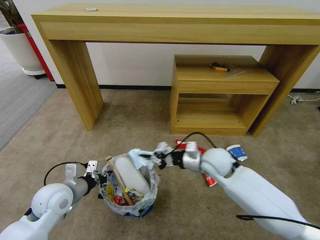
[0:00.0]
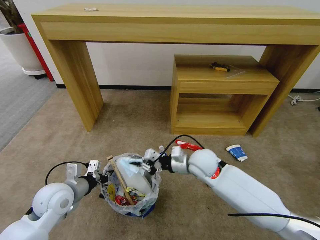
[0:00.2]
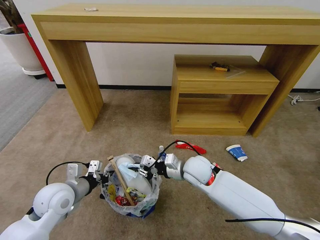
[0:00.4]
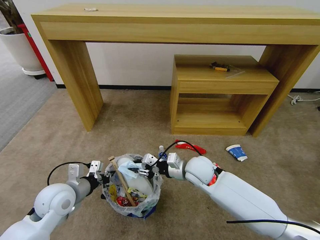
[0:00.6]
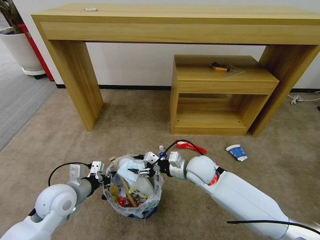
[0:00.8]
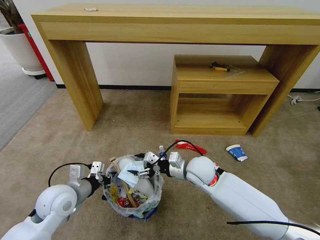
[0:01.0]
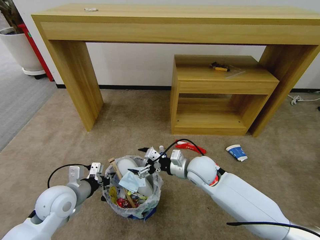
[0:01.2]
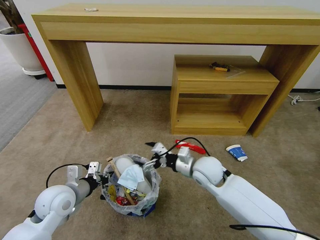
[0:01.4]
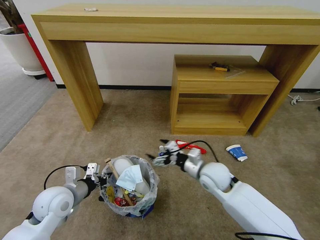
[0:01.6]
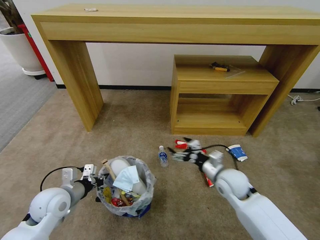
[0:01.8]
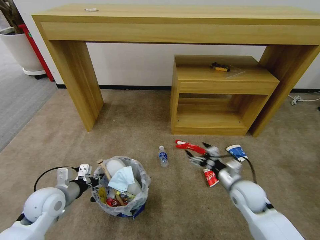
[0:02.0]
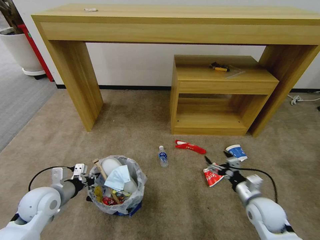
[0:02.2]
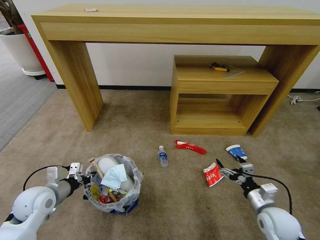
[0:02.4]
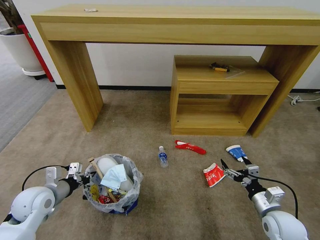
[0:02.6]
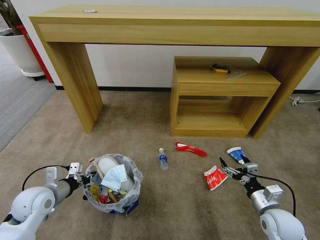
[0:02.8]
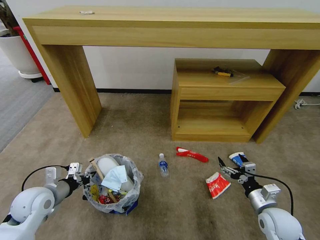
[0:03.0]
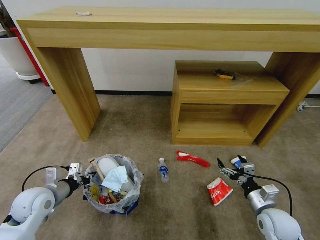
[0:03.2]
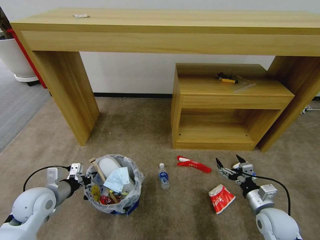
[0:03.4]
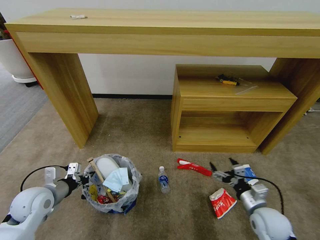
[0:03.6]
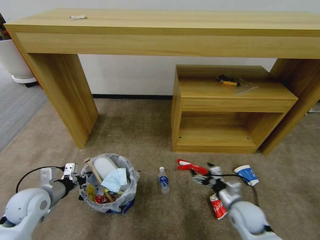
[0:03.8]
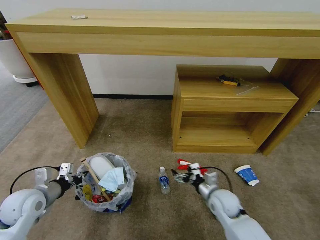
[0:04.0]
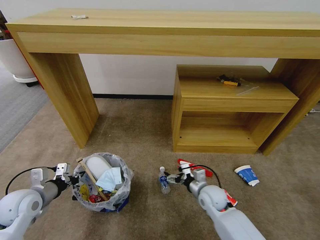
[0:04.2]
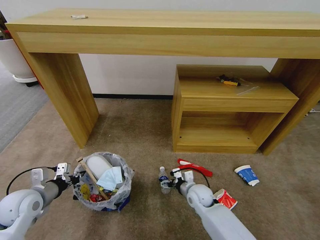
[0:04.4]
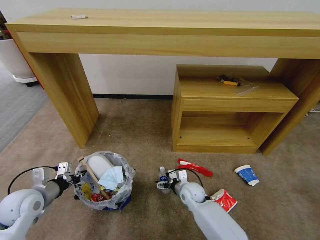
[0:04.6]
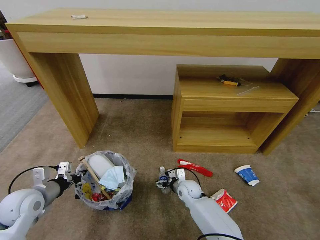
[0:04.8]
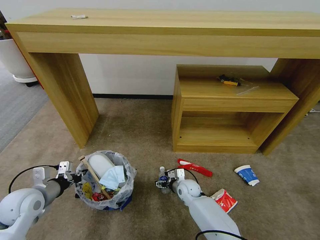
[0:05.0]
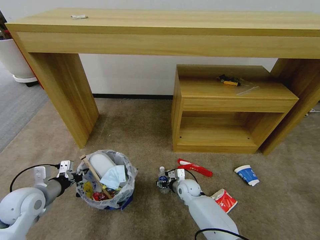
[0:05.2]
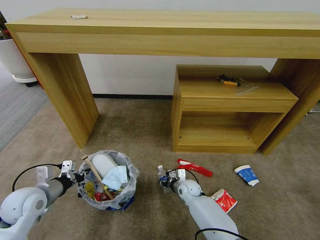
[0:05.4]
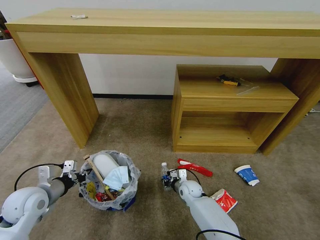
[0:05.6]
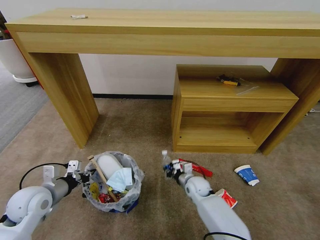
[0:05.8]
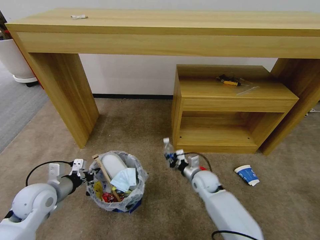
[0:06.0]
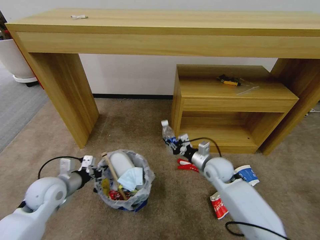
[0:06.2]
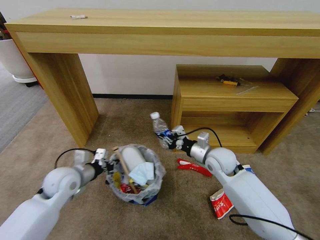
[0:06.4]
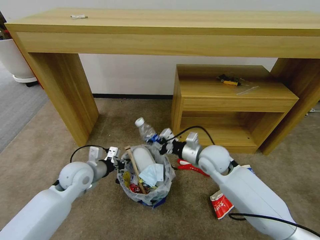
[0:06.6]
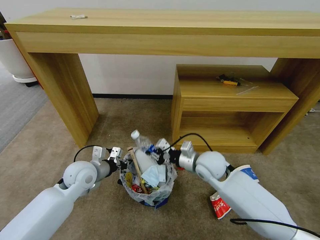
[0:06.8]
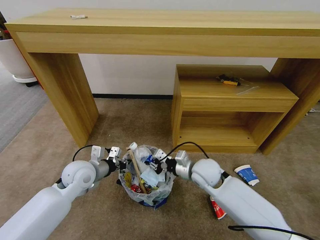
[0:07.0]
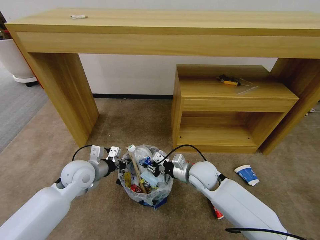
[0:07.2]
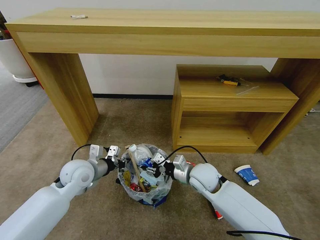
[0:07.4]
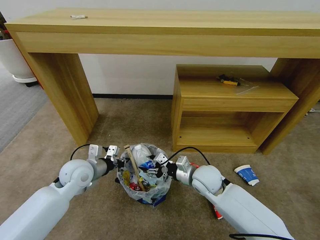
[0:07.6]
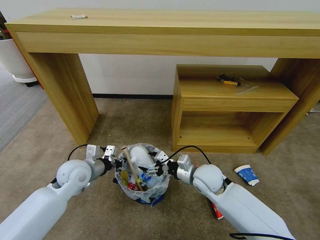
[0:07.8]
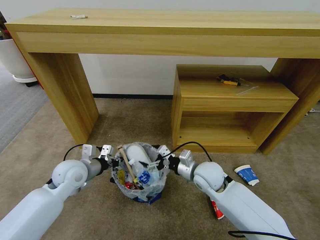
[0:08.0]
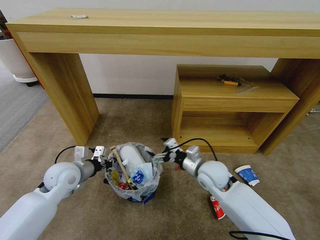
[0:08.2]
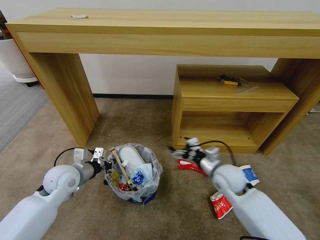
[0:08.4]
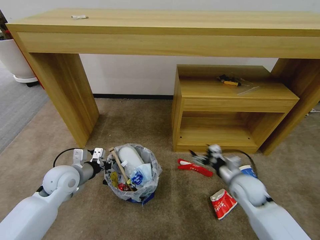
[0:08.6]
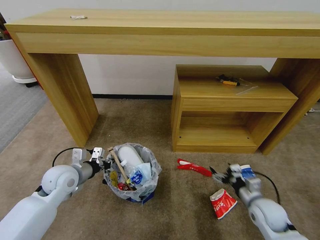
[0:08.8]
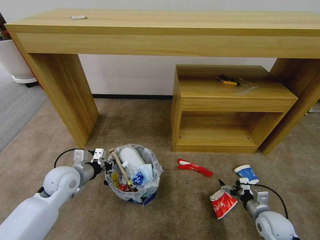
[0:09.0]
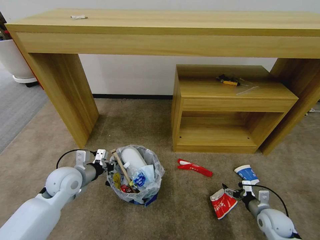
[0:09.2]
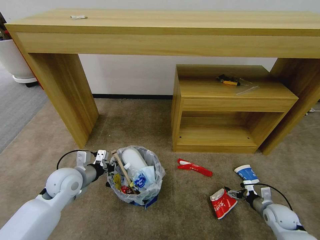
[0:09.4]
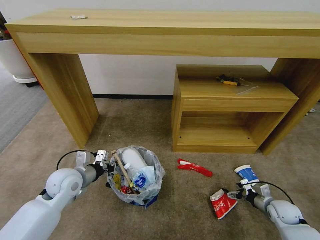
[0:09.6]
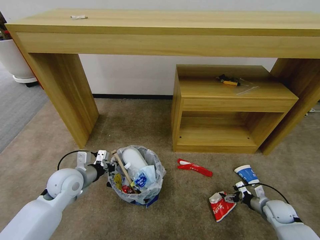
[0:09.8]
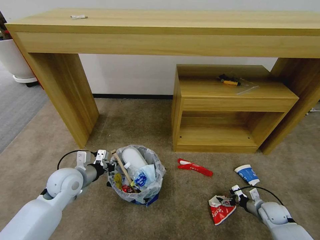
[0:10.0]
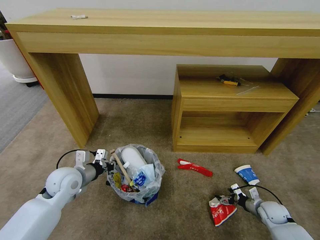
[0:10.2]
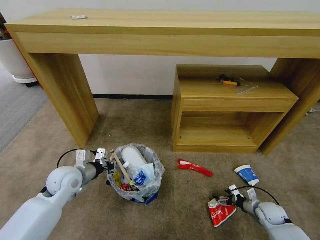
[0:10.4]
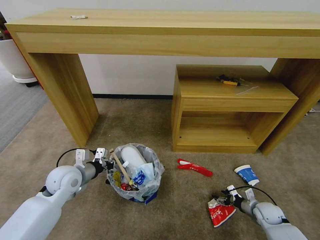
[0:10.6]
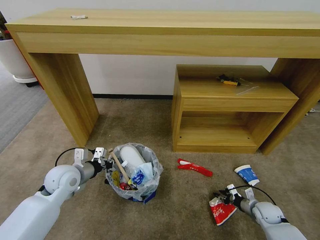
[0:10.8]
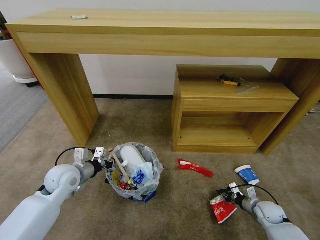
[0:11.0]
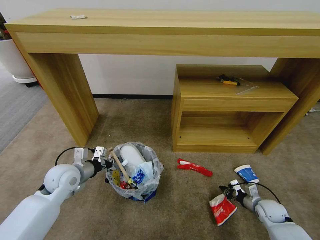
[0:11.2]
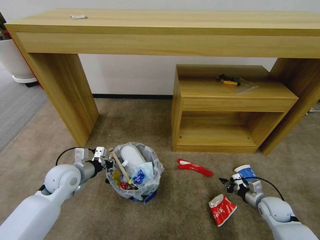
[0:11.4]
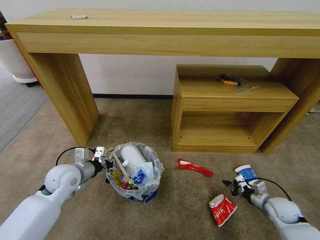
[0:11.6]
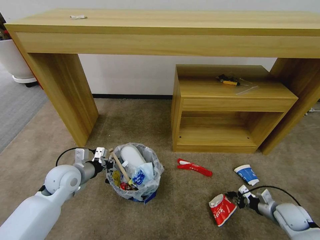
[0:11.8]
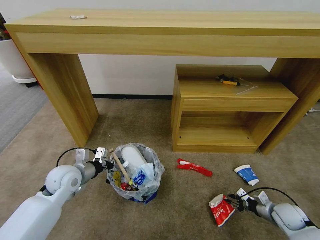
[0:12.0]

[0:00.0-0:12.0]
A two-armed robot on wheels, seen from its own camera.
Task of the whole recording: Pick up the trash bin and place the garbage on the floor into it.
0.0 to 1.6 s: The right gripper ends up about 5 cm from where it was, and opens its fingers.
1.6 to 3.0 s: The left gripper is displaced to the left by approximately 5 cm; the right gripper goes approximately 20 cm to the right and backward.
3.0 to 4.4 s: The right gripper travels to the left, forward and downward by roughly 25 cm.
4.4 to 6.0 s: The right gripper heads forward, covering roughly 5 cm, and closes its fingers; the left gripper ends up about 5 cm from where it was.
6.0 to 7.6 s: The left gripper heads to the right and forward, covering some 10 cm; the right gripper shifts some 10 cm upward, and opens its fingers.
7.6 to 9.0 s: The right gripper is displaced to the right, backward and downward by roughly 30 cm, and opens its fingers.
9.0 to 10.4 s: The right gripper travels downward, to the right and forward by approximately 10 cm.
10.4 to 12.0 s: The right gripper ends up approximately 5 cm from where it was, and closes up.

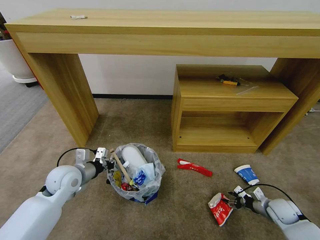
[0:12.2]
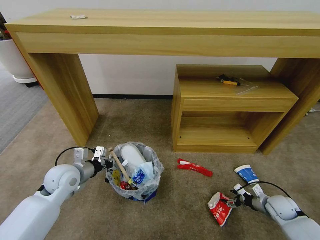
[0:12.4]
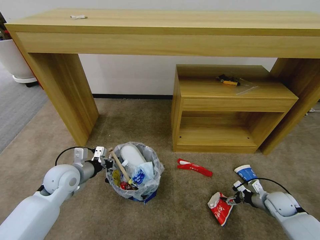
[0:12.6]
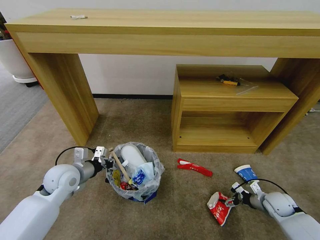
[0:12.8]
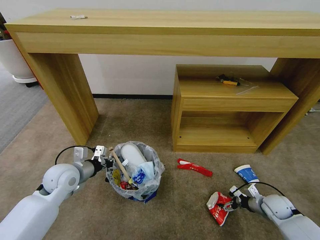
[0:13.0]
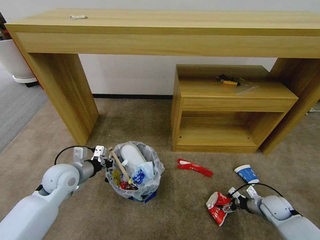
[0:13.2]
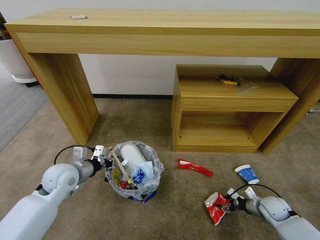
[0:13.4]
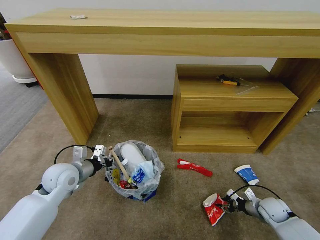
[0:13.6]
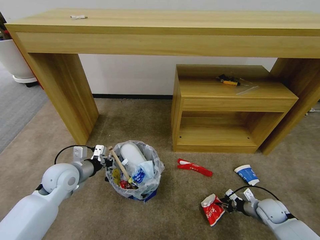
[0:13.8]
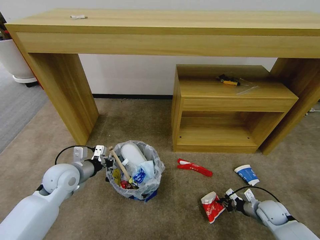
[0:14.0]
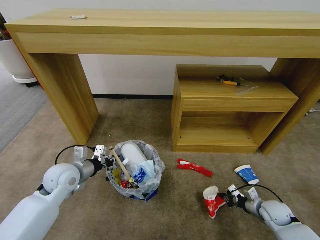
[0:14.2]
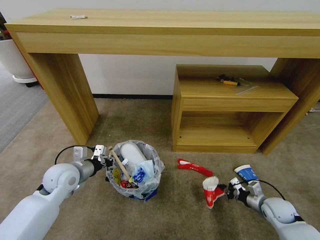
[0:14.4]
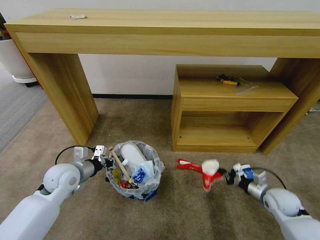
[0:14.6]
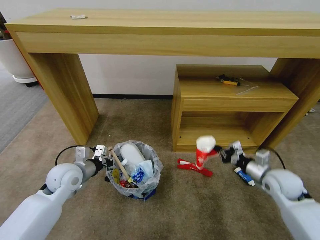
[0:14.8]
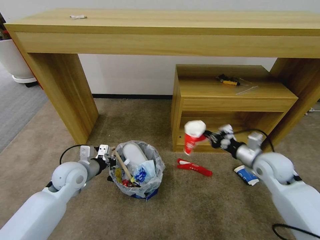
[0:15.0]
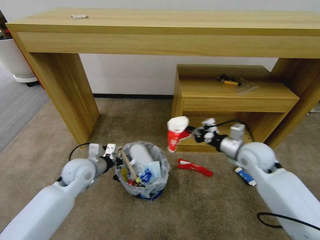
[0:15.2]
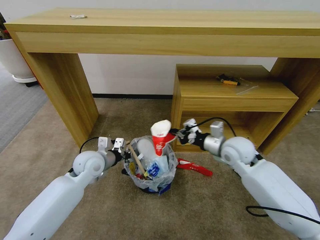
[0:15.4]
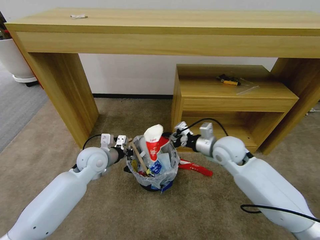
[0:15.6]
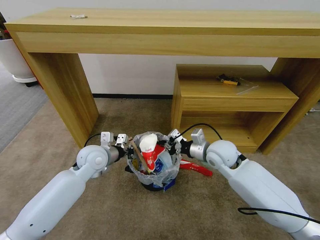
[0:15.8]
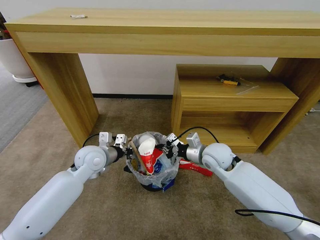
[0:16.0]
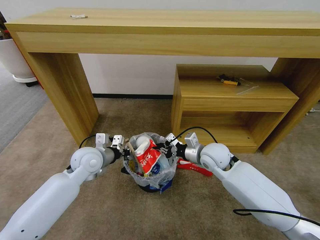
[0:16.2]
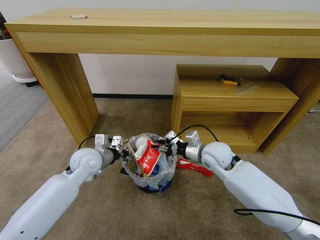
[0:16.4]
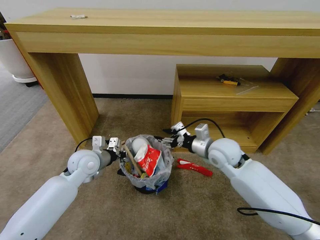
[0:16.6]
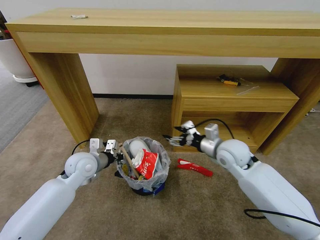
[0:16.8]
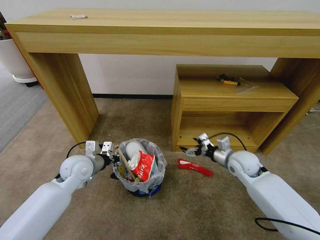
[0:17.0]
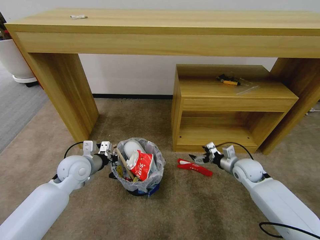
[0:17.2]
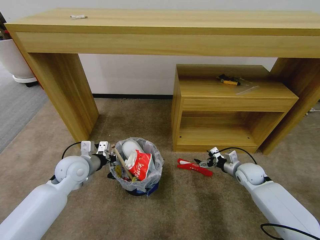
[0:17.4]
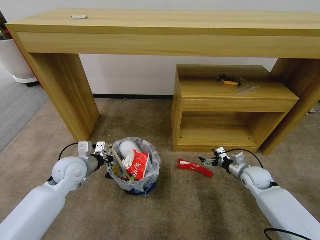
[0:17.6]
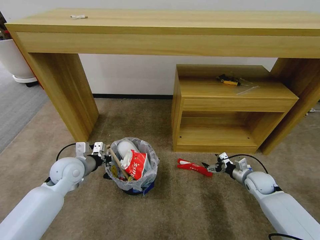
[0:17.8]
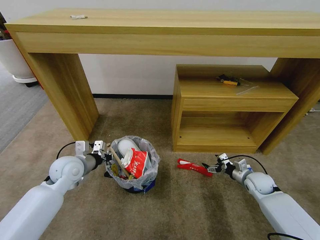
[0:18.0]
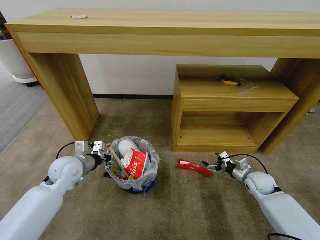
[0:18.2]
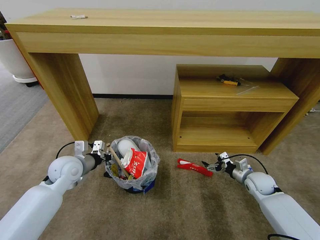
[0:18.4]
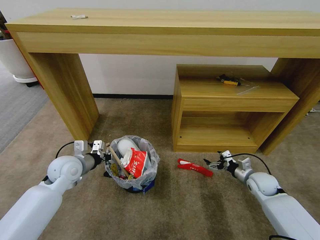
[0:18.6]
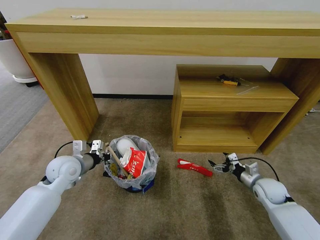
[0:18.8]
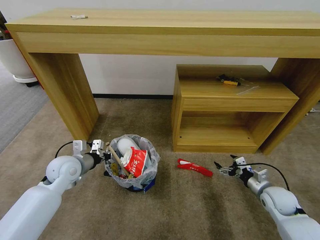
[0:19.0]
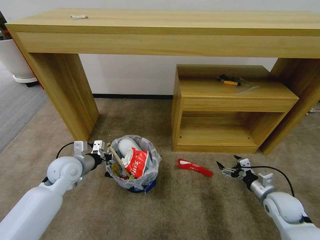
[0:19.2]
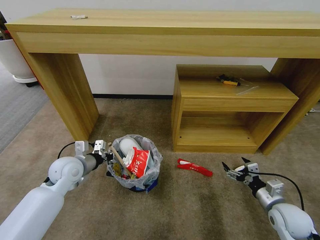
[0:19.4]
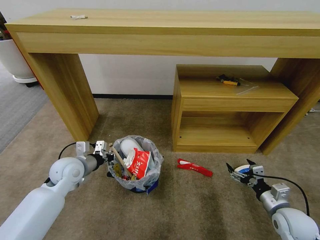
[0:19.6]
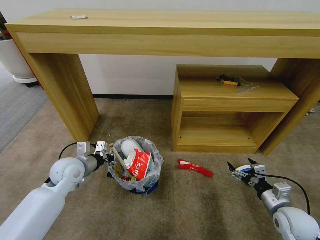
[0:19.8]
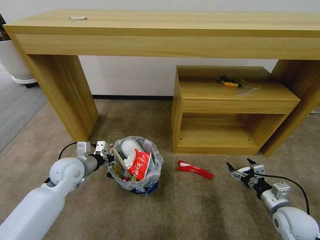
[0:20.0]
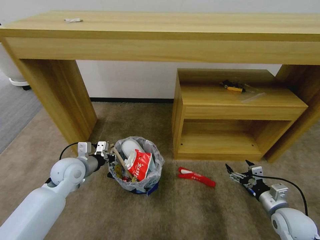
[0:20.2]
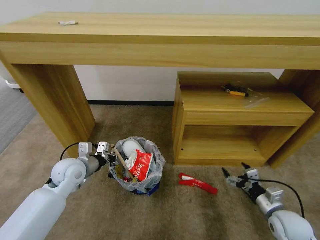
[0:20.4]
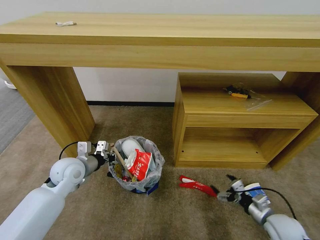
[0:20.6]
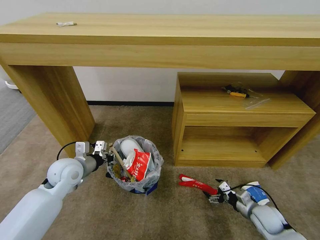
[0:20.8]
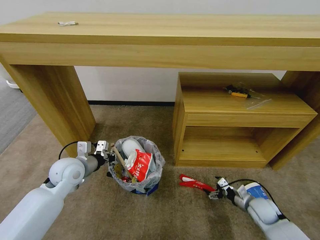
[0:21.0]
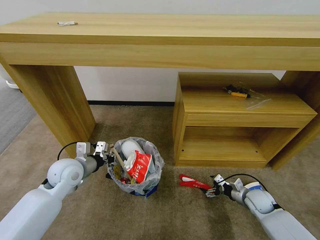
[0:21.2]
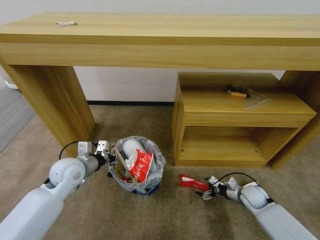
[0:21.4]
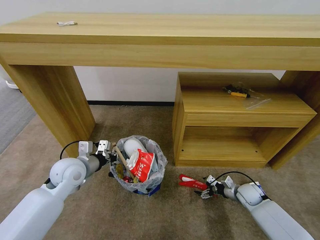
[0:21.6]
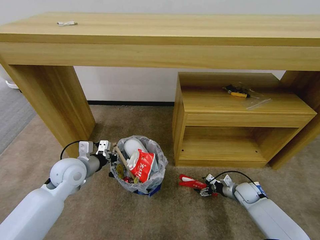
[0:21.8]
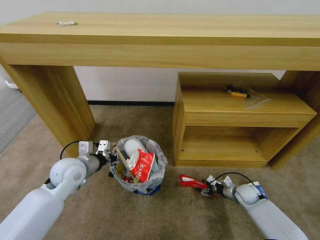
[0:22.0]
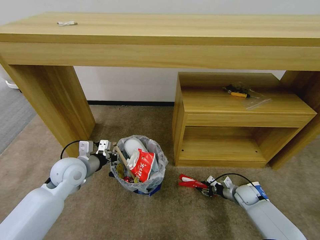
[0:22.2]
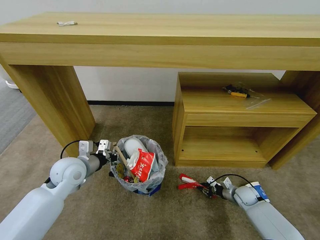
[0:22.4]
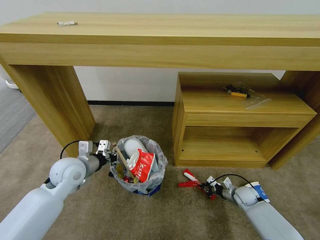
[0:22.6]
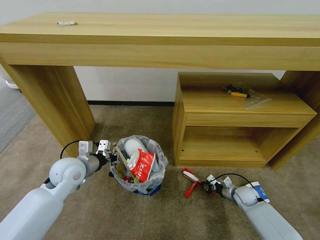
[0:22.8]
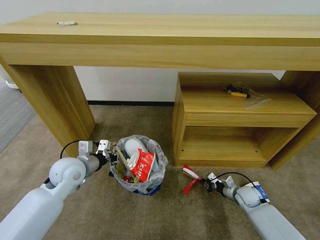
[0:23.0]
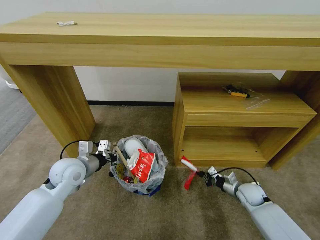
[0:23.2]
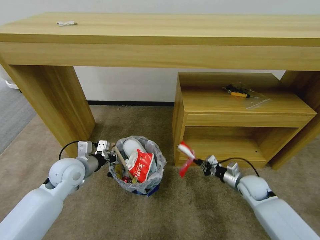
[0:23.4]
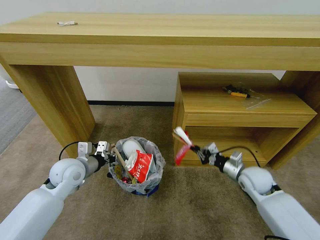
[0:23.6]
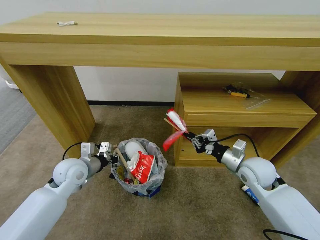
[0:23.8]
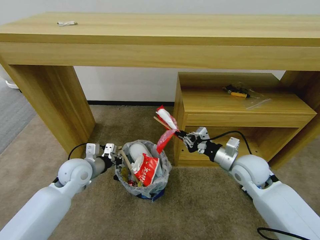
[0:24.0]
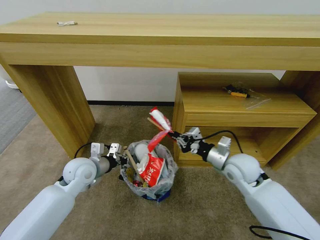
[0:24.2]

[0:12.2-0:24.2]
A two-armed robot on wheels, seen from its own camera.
Task of the whole recording: Pick up the trash bin and place the garbage on the floor into it.
12.2 to 13.8 s: The right gripper opens, then closes once more.
13.8 to 15.2 s: The right gripper travels upward and to the left by roughly 30 cm.
15.2 to 16.6 s: The right gripper goes about 10 cm to the left, and opens.
16.6 to 18.2 s: The right gripper travels to the right and downward by roughly 25 cm, and opens its fingers. The left gripper is displaced to the left by some 5 cm.
18.2 to 19.8 s: The right gripper goes some 15 cm backward.
19.8 to 21.2 s: The right gripper goes approximately 15 cm downward and forward.
21.2 to 22.6 s: The right gripper is displaced downward by some 5 cm, and closes.
22.6 to 24.2 s: The right gripper is displaced upward and to the left by approximately 30 cm.
